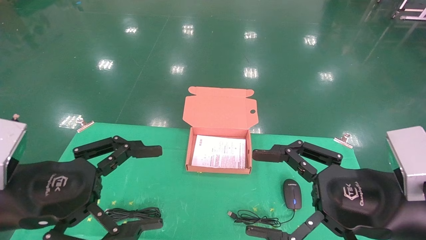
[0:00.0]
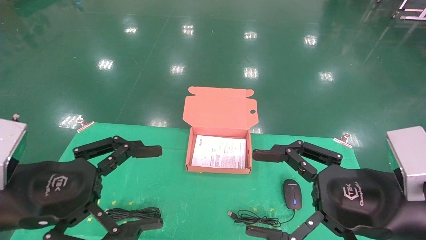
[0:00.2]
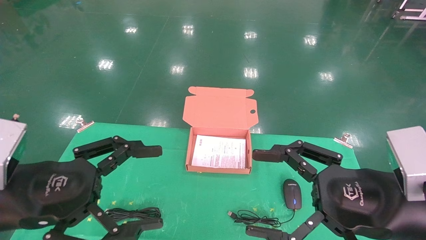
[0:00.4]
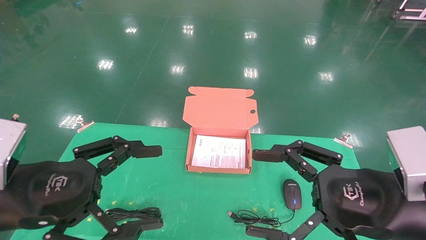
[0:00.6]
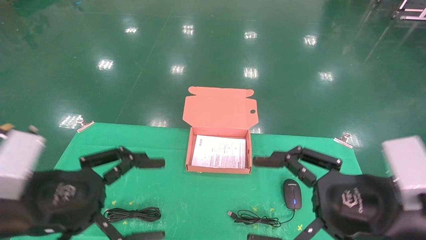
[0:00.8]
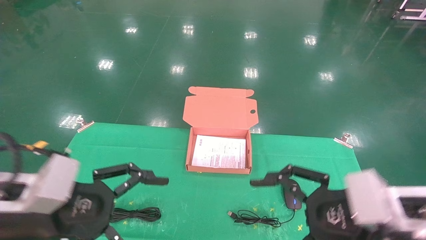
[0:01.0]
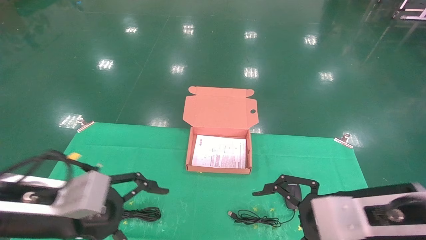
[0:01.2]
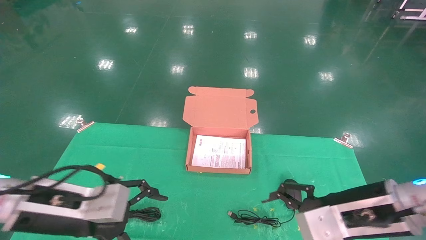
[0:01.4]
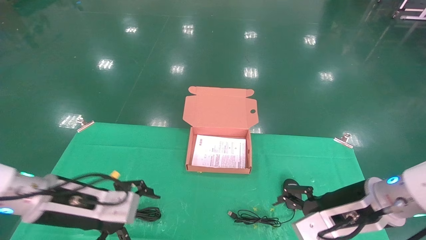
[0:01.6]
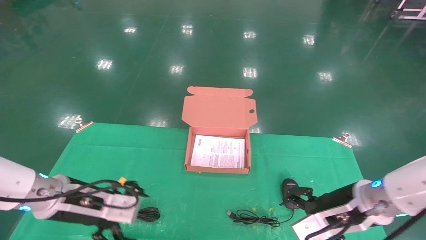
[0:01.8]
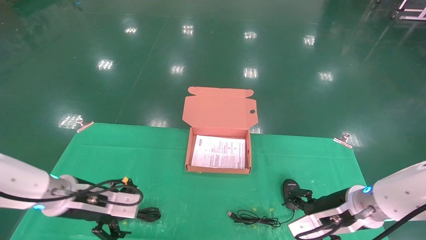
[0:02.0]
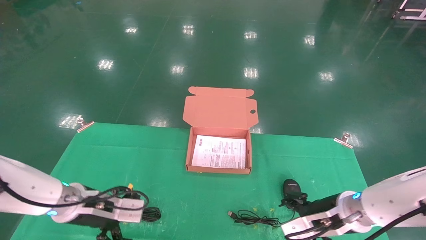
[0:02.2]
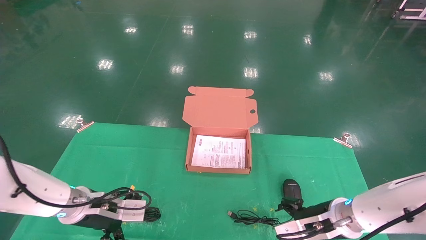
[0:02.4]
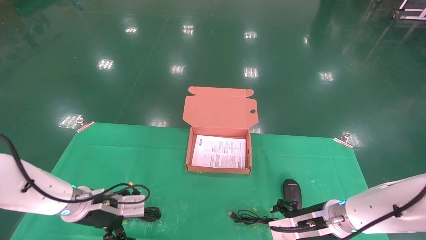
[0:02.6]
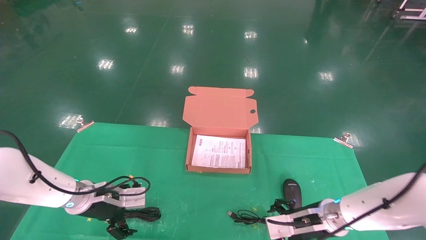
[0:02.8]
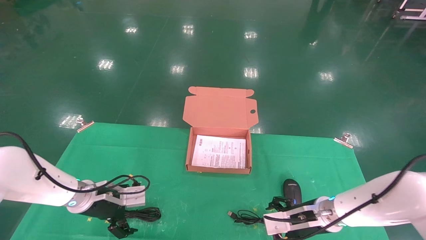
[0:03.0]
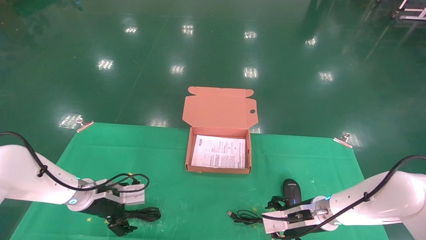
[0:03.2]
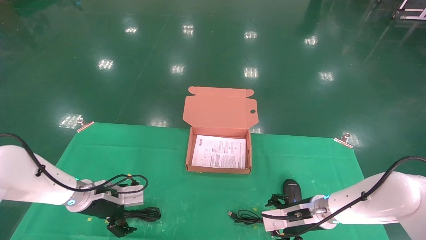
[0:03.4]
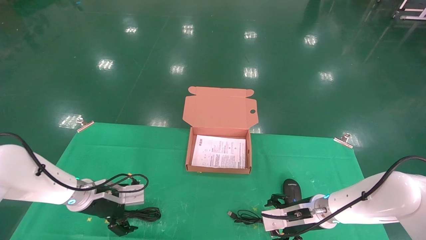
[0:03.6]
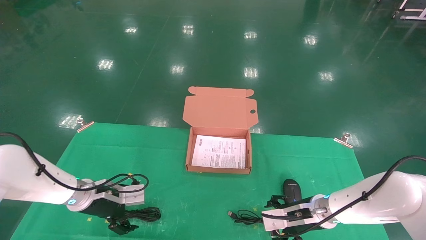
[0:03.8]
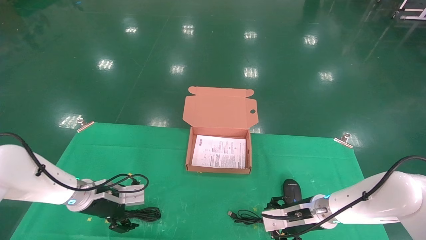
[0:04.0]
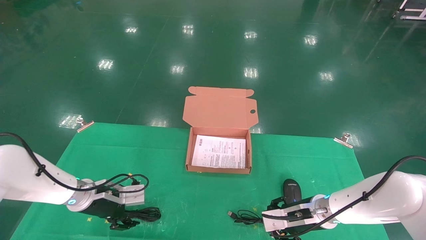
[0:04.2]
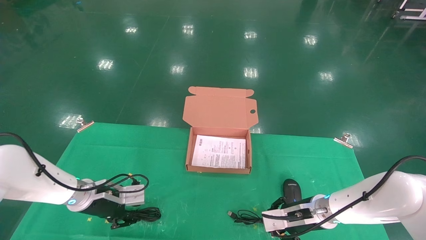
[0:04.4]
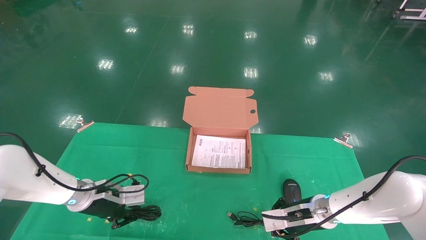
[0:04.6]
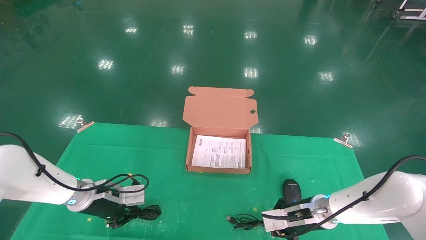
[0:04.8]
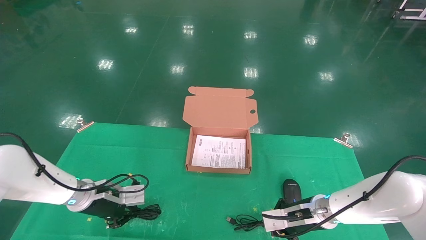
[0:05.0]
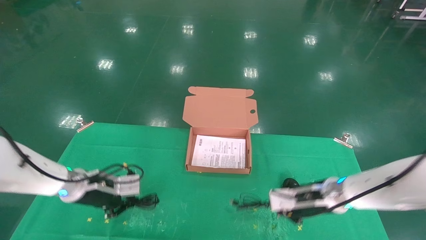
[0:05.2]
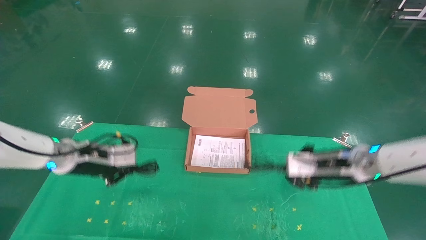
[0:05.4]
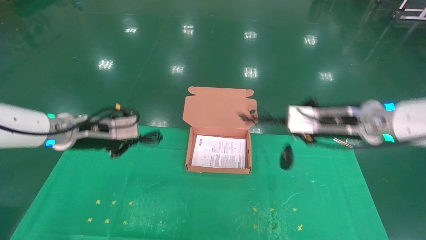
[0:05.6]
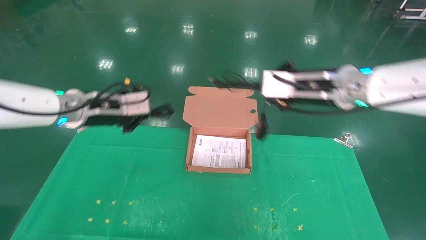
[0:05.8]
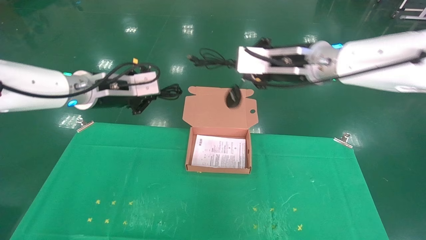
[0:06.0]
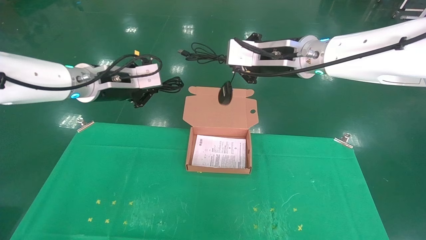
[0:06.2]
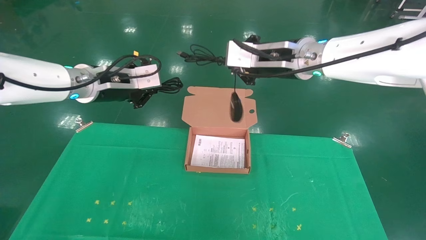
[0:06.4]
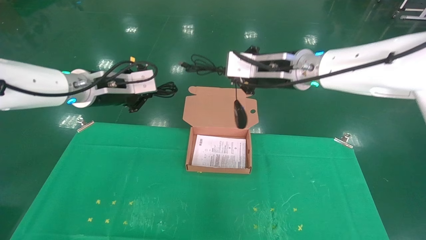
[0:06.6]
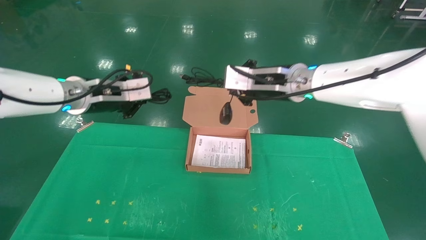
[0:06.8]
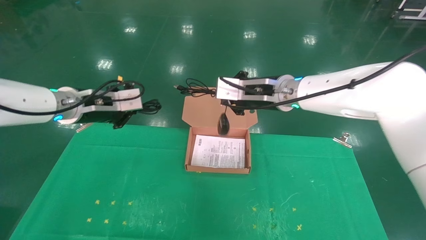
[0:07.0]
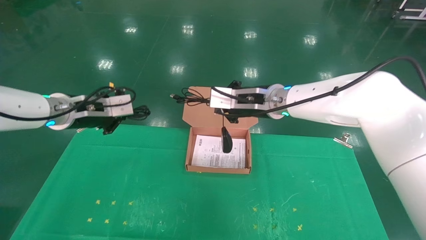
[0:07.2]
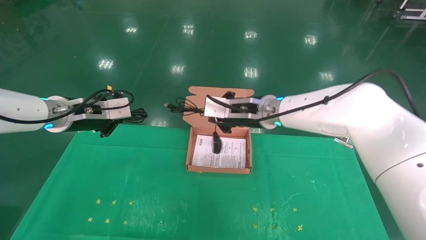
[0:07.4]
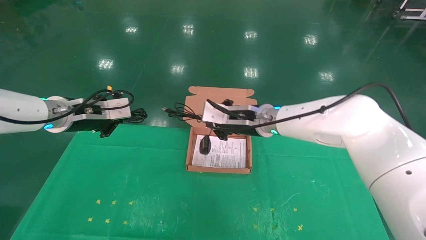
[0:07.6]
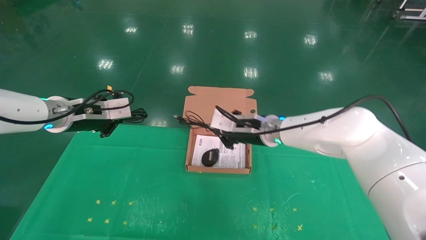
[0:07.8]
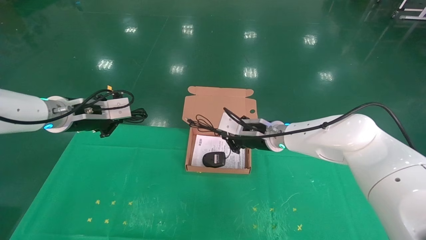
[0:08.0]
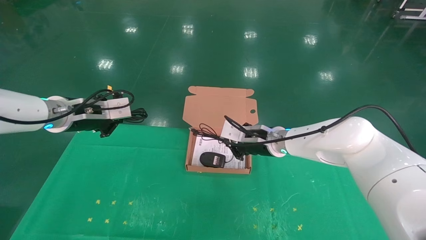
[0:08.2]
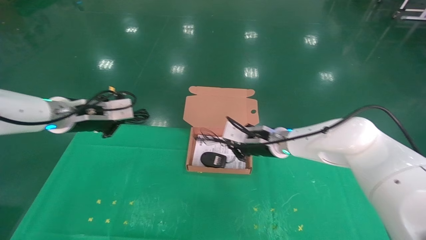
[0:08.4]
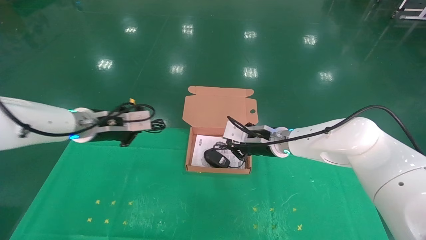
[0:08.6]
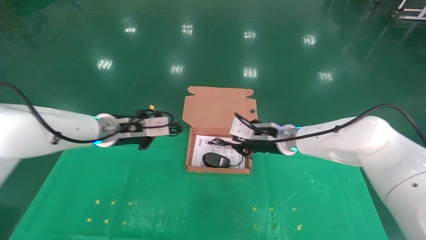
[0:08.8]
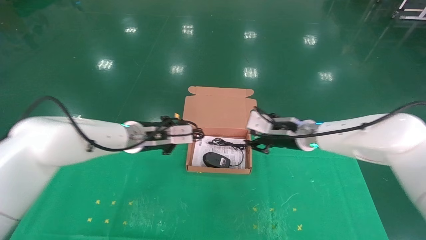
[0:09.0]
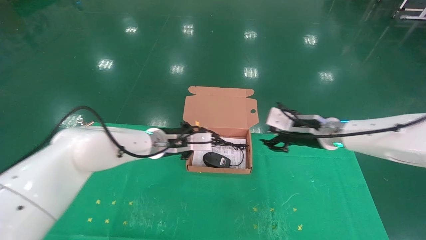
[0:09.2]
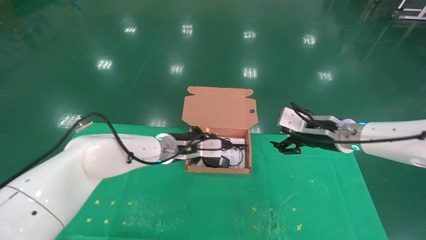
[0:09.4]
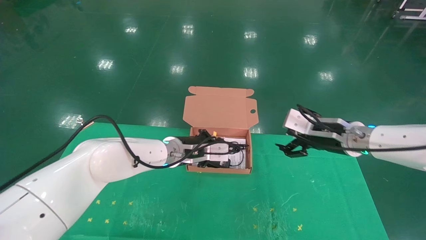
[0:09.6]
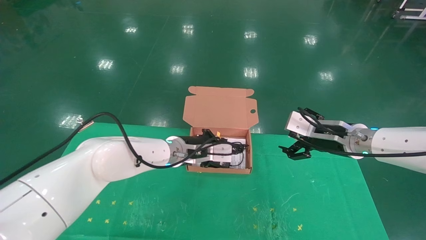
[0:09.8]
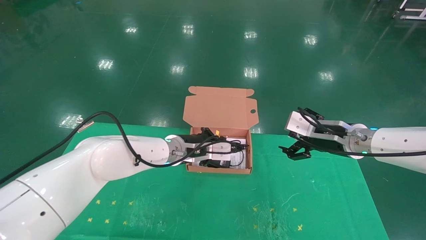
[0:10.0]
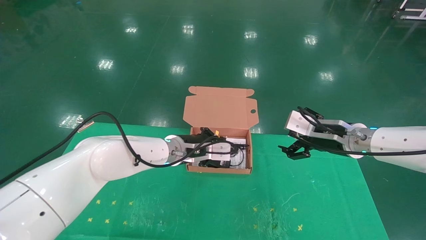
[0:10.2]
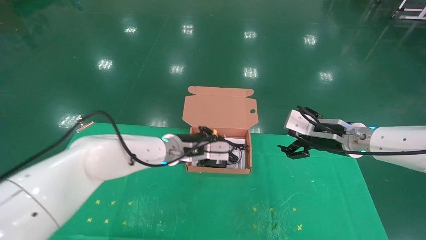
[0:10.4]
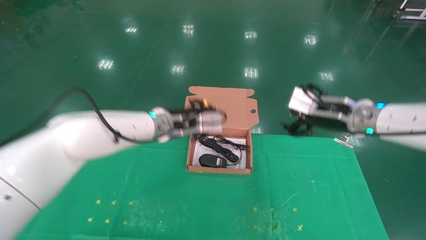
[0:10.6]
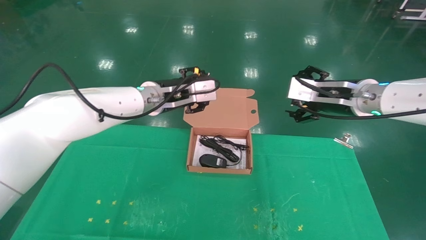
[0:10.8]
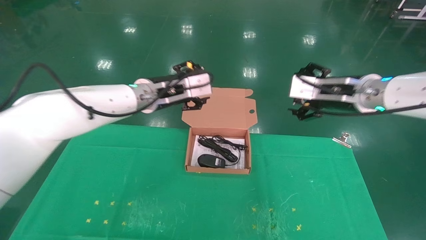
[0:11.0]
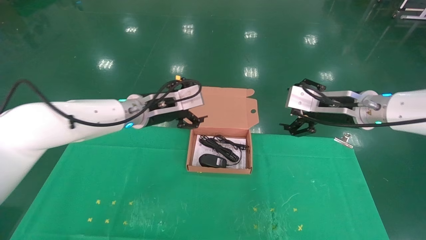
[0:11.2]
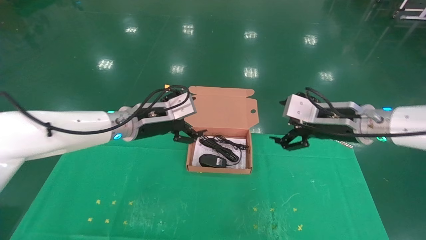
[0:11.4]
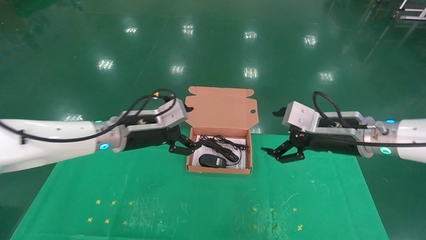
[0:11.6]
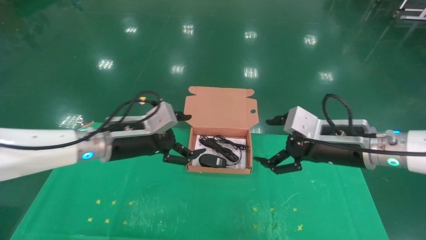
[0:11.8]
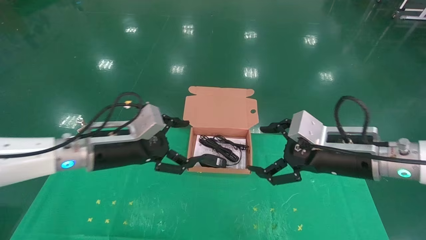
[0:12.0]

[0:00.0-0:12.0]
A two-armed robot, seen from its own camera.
Task of the whole recording: grasp data cable left put into box grasp mouse right put into box.
Step, 0:00.6 to 0:04.8: Grab and pick up both the mouse and power cord from the accessory packaging area at the same time.
Step, 0:05.0 to 0:09.6: Place the mouse and power cord into the box.
0:00.0 to 0:01.6: The two grippers go approximately 10 cm forward and downward.
0:01.6 to 0:03.0: The left gripper goes about 15 cm forward and downward; the right gripper is displaced downward and forward by some 15 cm.
0:03.0 to 0:04.4: The right gripper closes; the left gripper closes up.
0:04.4 to 0:06.0: Both grippers move upward, about 30 cm. The right gripper closes its fingers, while the left gripper closes up.
0:06.0 to 0:07.6: The left gripper travels to the left by some 5 cm. The right gripper goes some 15 cm downward, forward and to the left.
0:07.6 to 0:09.0: The right gripper goes roughly 10 cm to the right; the left gripper shifts about 15 cm to the right and downward.
0:09.0 to 0:10.4: The right gripper moves to the right and backward, approximately 10 cm, and opens its fingers. The left gripper shifts approximately 5 cm to the right.
0:10.4 to 0:12.0: The left gripper is displaced to the left and backward by approximately 15 cm, and opens. Meanwhile the right gripper is displaced backward by approximately 10 cm.

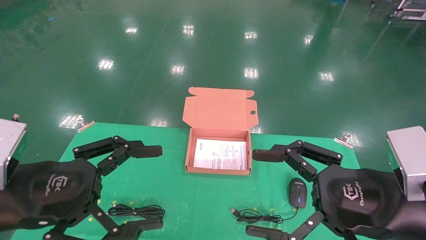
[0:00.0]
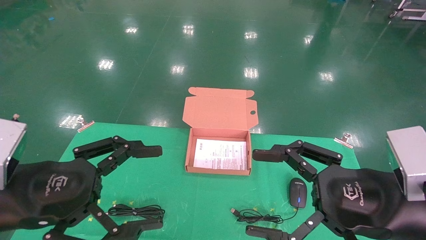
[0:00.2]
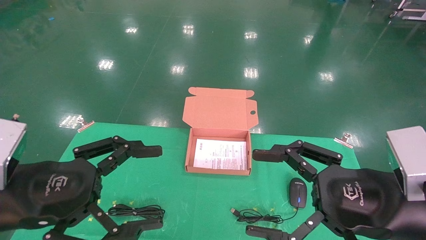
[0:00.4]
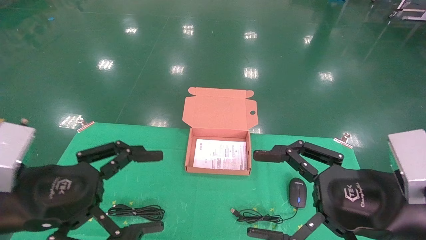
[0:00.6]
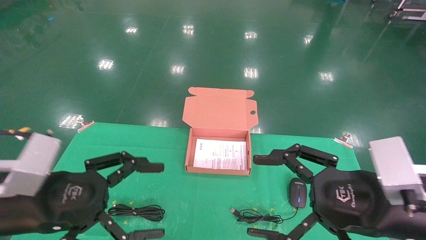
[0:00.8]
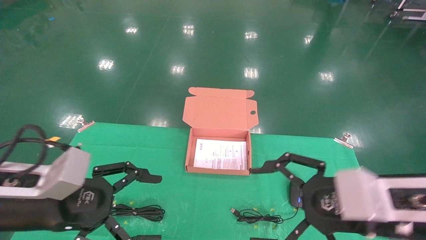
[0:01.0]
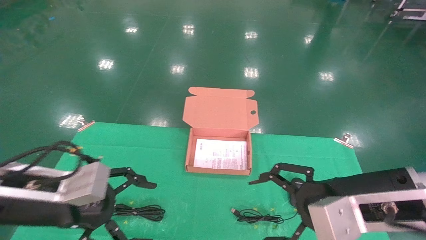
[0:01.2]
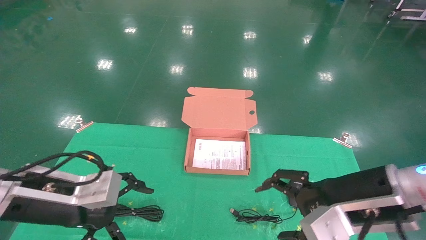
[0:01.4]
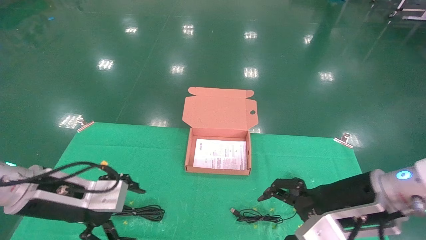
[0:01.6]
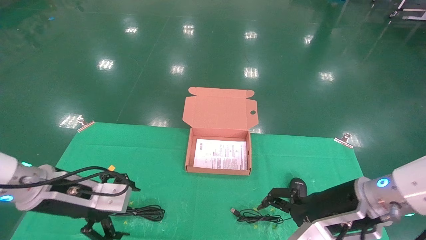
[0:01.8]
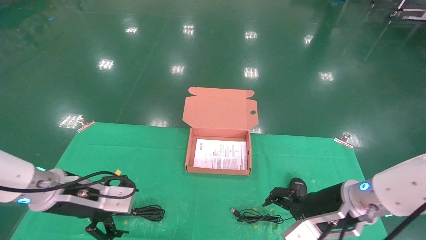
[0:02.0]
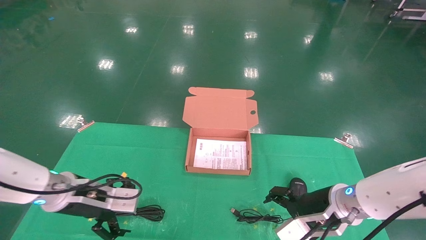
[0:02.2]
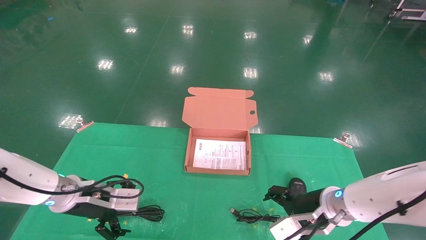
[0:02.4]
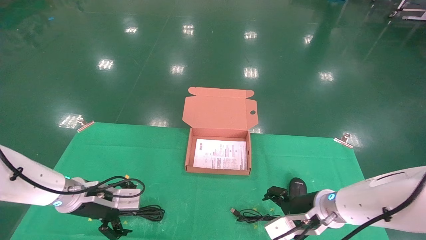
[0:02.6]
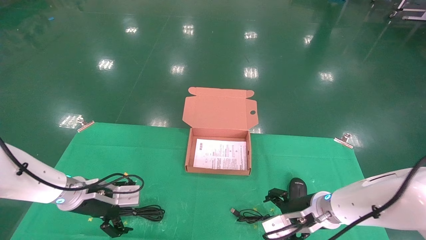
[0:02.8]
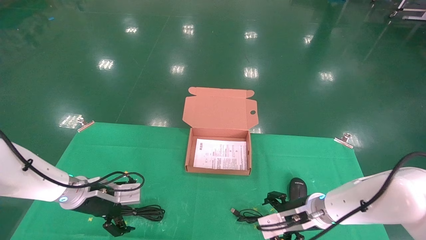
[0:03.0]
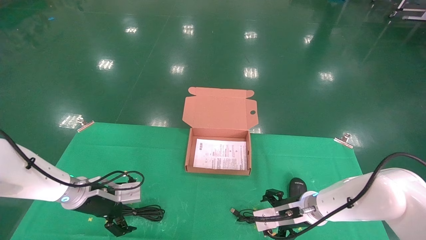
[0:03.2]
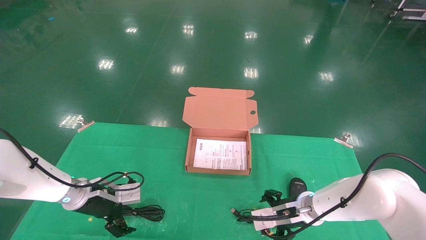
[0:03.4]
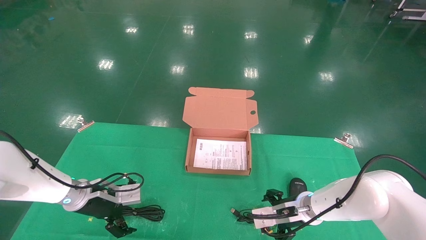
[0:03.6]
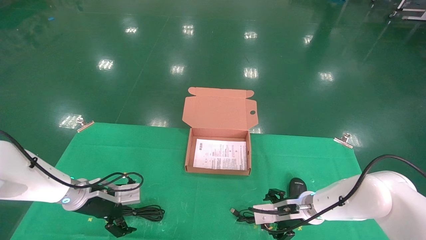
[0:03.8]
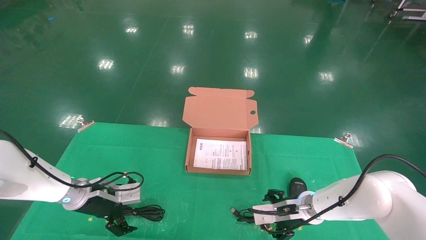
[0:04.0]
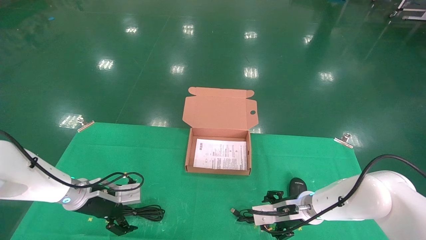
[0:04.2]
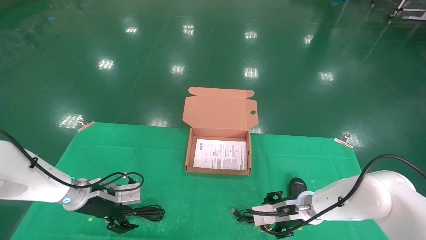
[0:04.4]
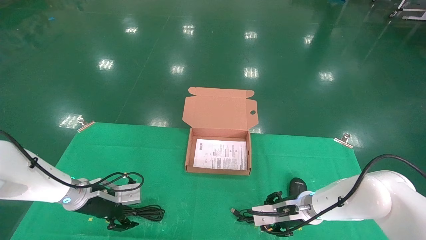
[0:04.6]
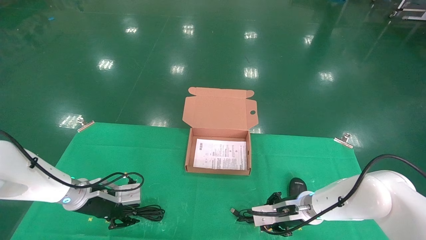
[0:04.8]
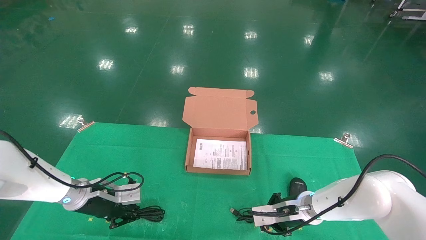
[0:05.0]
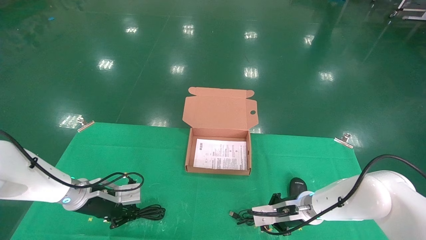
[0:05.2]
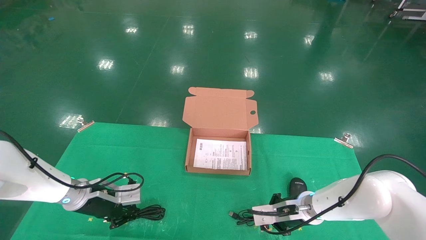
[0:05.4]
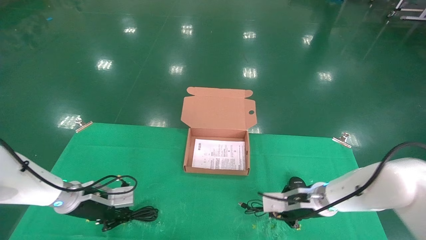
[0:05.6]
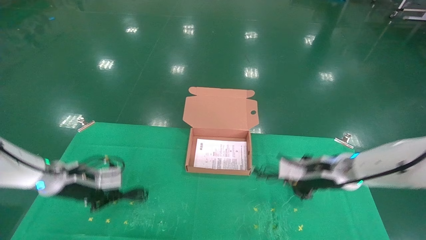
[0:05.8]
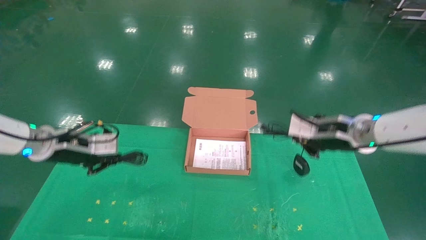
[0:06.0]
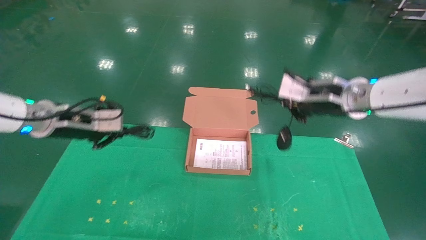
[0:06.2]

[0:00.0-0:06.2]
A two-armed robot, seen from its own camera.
Task of the whole recording: grasp data cable left put into box grasp mouse right put into box.
Step, 0:00.8 to 0:05.2: Grab and pick up both the mouse and power cord from the accessory packaging area at the same time.
0:00.0 to 0:01.6: Both grippers travel together forward, some 10 cm.
0:01.6 to 0:03.2: The right gripper heads downward and forward, covering roughly 20 cm, while the left gripper is displaced forward and downward by some 15 cm.
0:03.2 to 0:04.6: The right gripper closes; the left gripper closes.
0:04.6 to 0:06.2: The grippers both shift upward by approximately 25 cm. The left gripper closes its fingers; the right gripper closes up.
